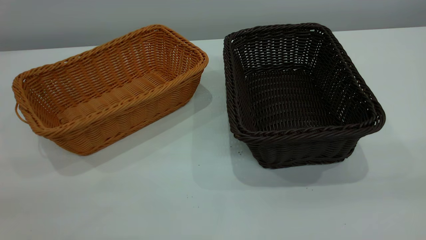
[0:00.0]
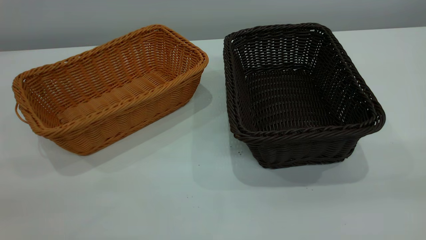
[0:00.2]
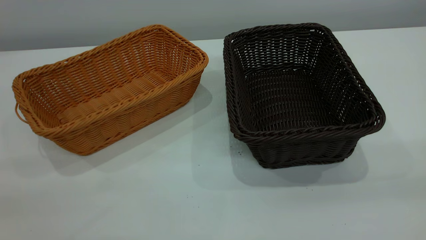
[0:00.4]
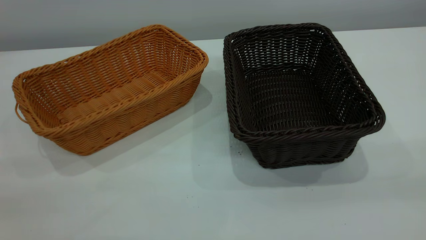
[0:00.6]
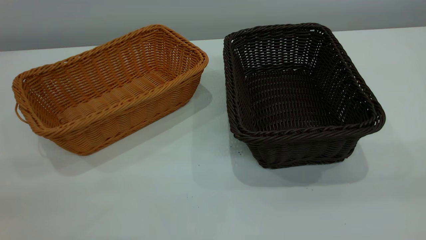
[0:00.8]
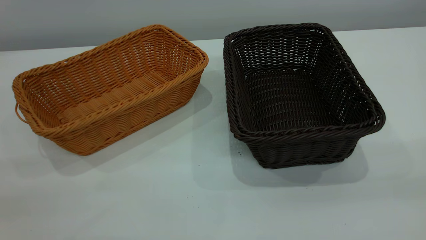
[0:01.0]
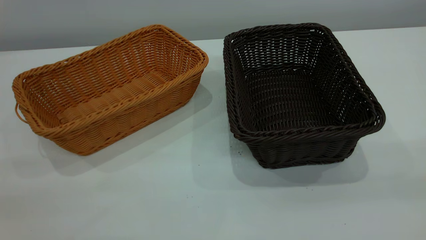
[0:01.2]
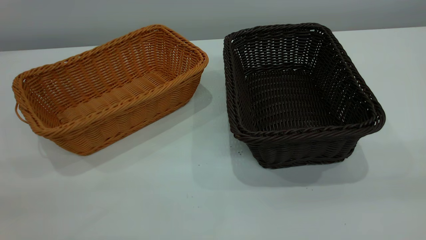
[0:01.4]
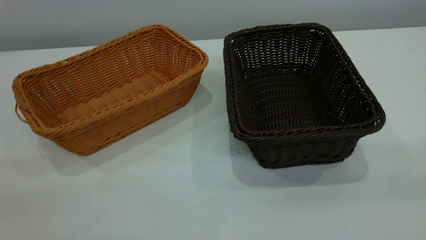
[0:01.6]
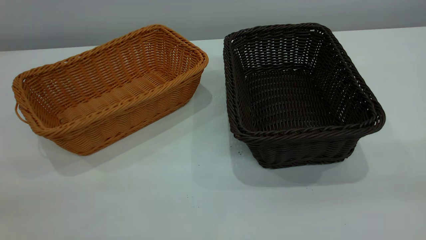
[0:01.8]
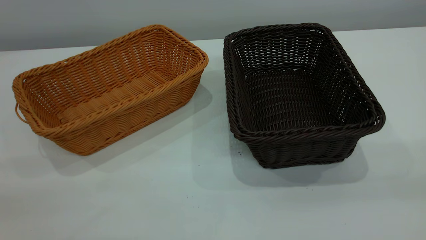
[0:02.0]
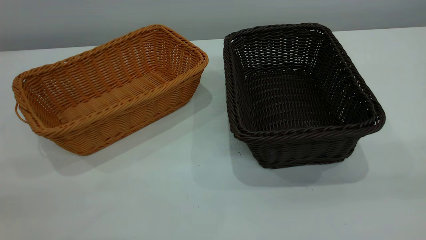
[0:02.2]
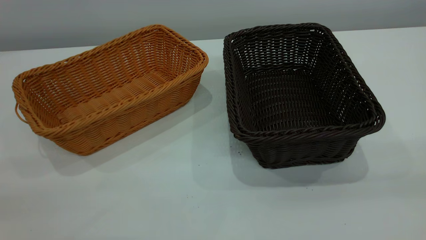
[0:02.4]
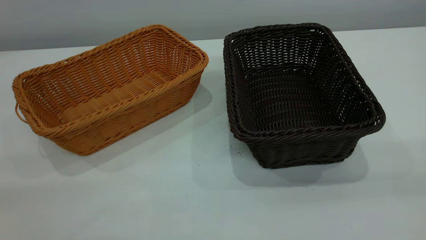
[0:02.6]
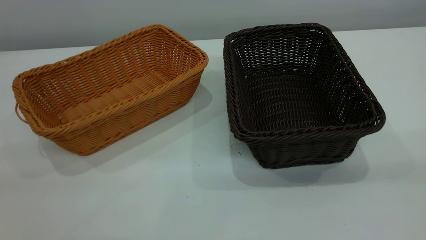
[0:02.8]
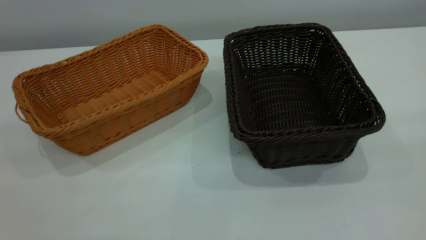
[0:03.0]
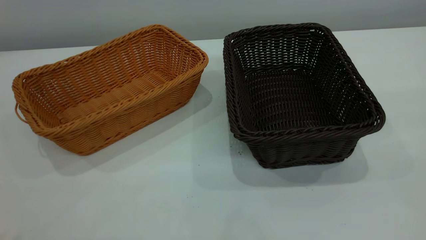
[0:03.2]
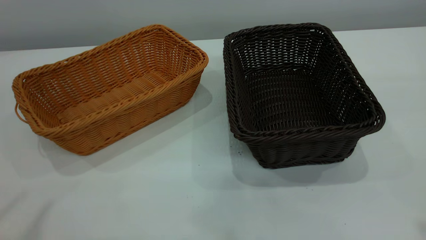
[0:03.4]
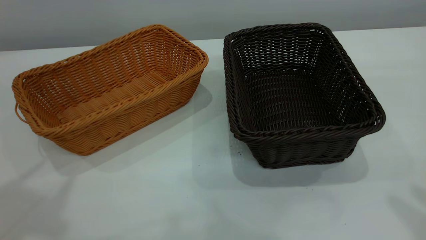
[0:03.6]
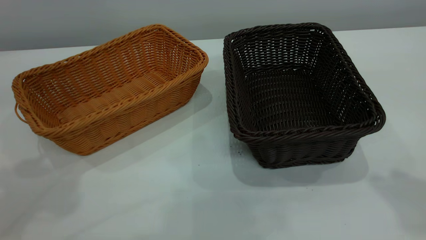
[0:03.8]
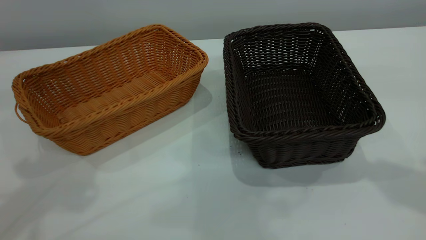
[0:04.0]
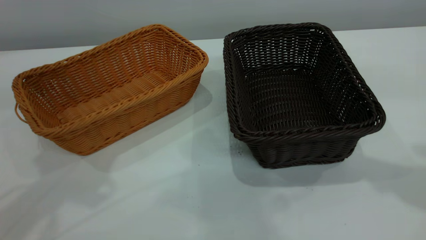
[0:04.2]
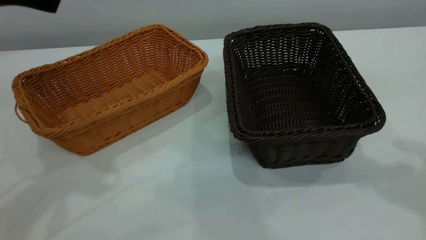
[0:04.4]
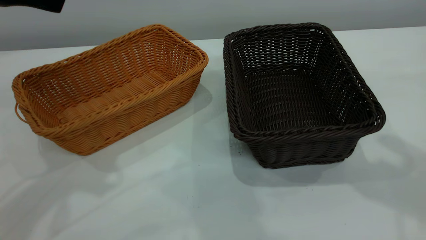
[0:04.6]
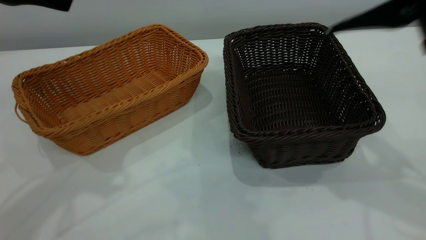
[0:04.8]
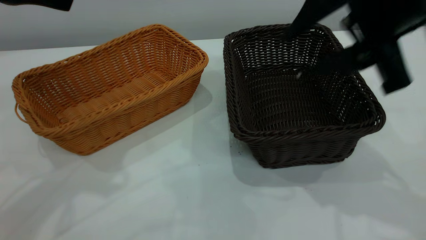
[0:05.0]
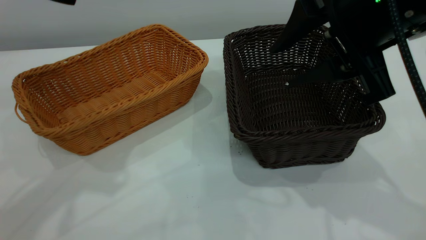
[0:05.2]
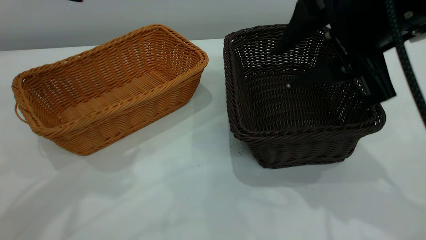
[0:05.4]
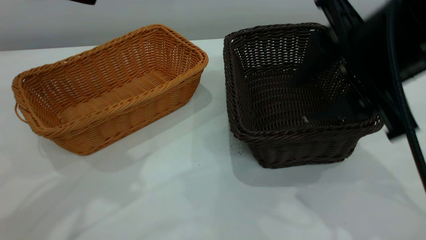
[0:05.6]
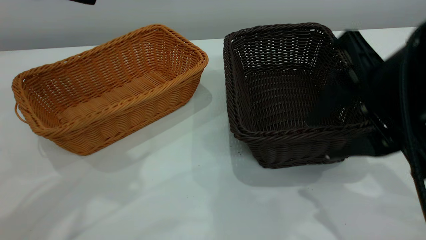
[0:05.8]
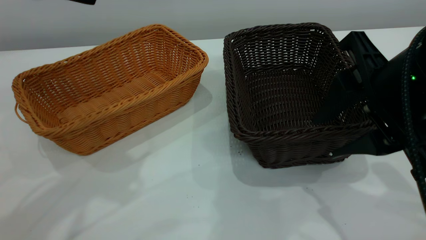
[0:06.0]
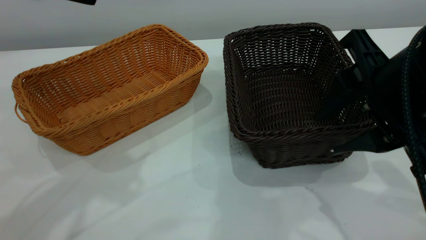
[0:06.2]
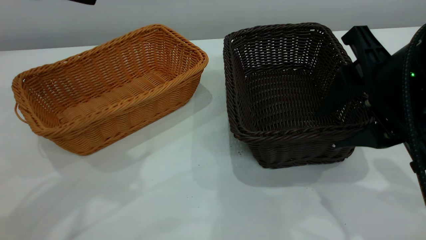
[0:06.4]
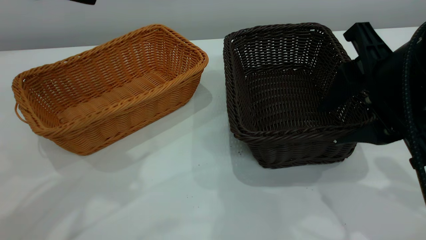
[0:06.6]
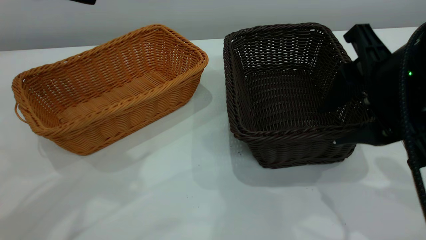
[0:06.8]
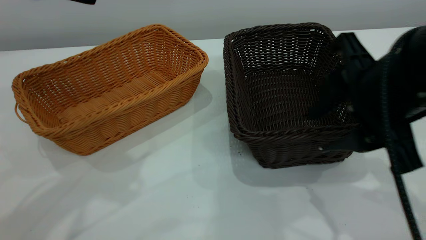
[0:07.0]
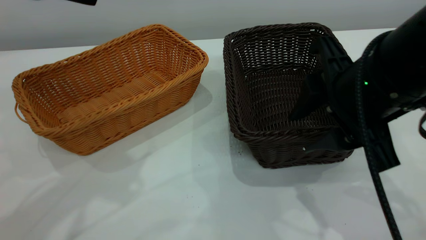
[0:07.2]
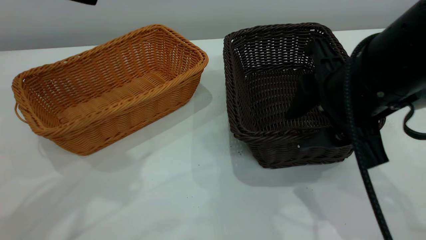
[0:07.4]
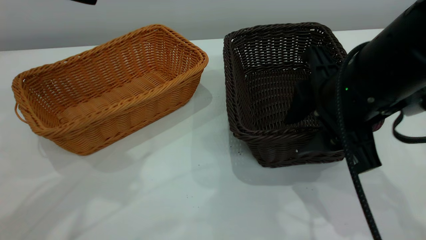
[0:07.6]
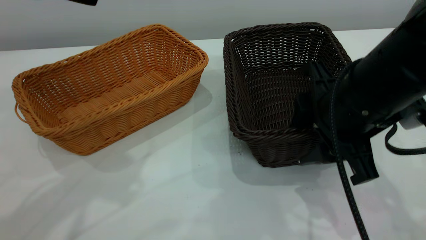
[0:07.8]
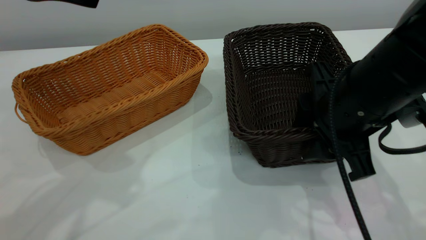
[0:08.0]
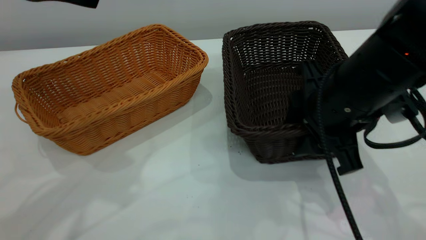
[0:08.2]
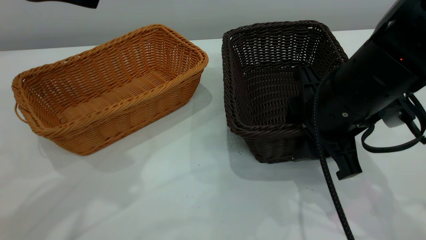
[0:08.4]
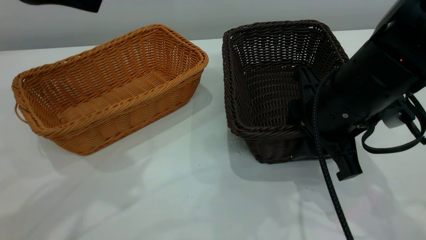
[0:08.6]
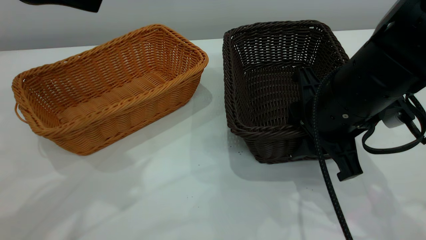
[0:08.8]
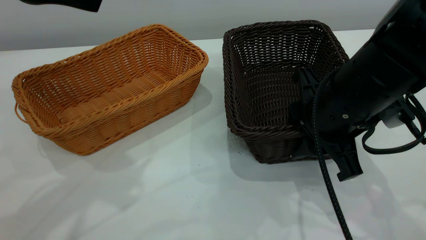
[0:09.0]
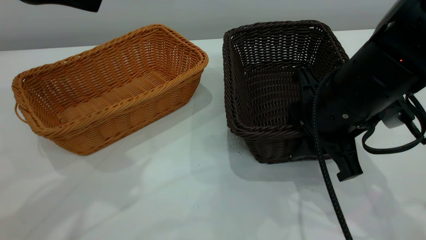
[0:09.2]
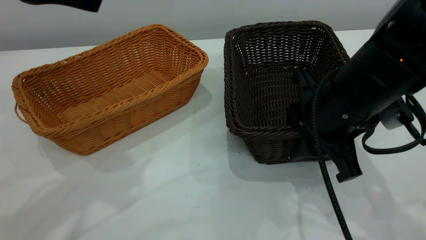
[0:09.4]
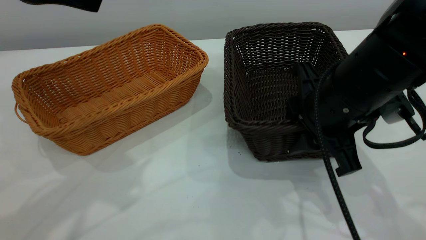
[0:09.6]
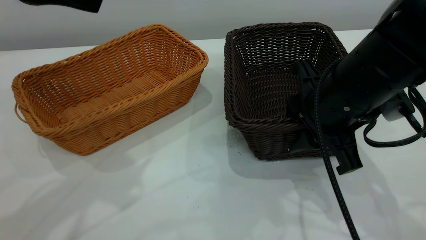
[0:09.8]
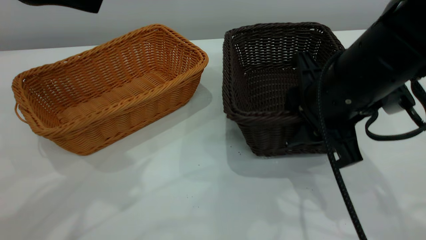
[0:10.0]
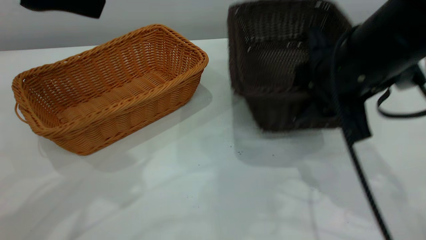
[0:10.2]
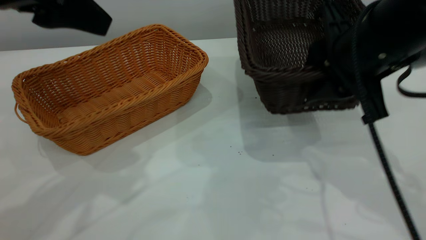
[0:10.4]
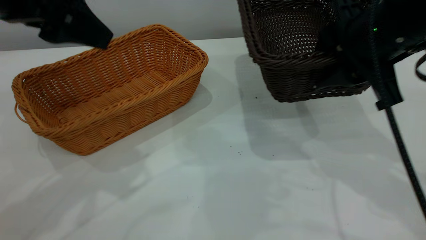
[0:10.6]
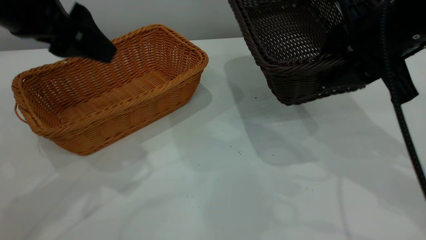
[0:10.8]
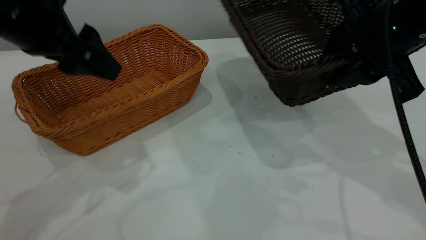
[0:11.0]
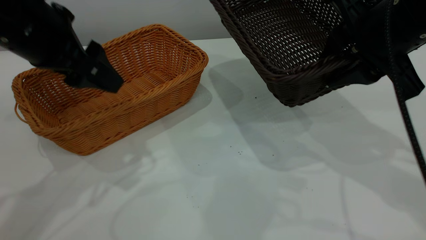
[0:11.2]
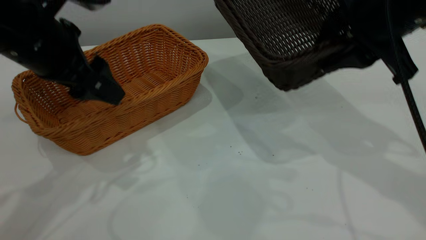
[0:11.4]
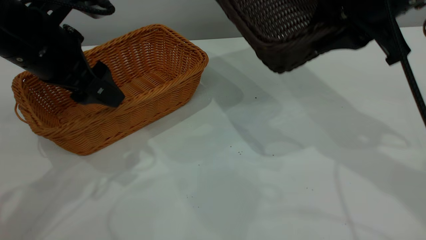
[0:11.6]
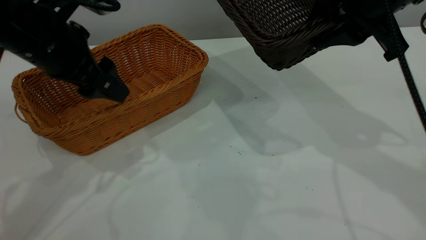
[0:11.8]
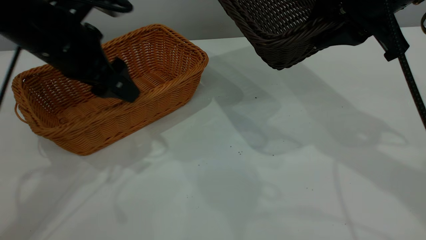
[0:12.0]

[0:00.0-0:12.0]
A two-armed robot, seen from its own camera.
Task of the whole recording: the left gripper grasp the brown basket and place it in the center of the table, the right gripper grasp the black basket and place it inside the brown one.
Step, 0:00.0 to 0:10.2: Pick up the light basket with the right gripper.
0:00.0 to 0:01.6: Neither gripper changes place.
0:04.4 to 0:06.0: The right gripper is displaced downward and to the left by roughly 15 cm.
0:06.0 to 0:07.6: The right gripper moves approximately 5 cm.
0:07.6 to 0:09.0: The grippers move only a little.
0:09.0 to 0:10.4: The right gripper shifts about 5 cm upward.
0:10.4 to 0:12.0: The left gripper shifts roughly 10 cm downward and forward. The right gripper moves about 5 cm.

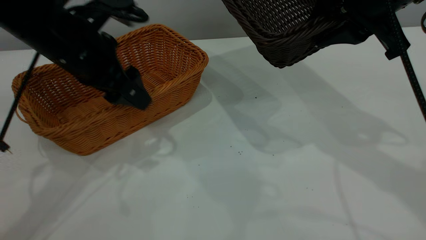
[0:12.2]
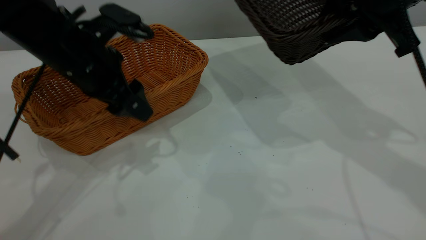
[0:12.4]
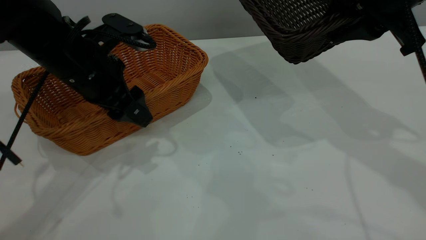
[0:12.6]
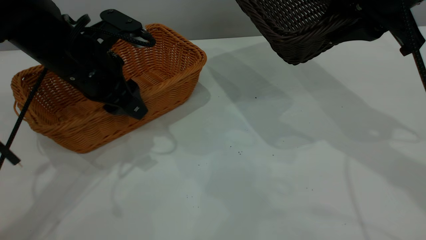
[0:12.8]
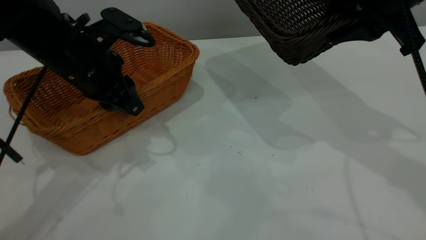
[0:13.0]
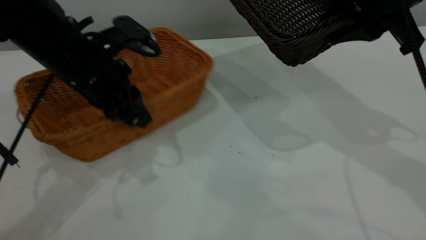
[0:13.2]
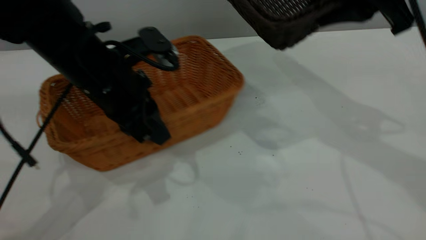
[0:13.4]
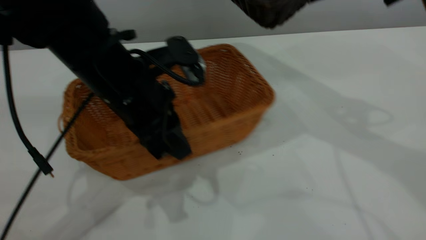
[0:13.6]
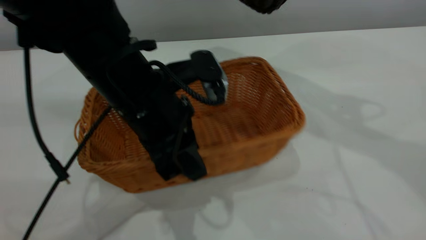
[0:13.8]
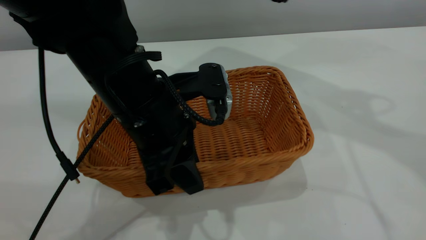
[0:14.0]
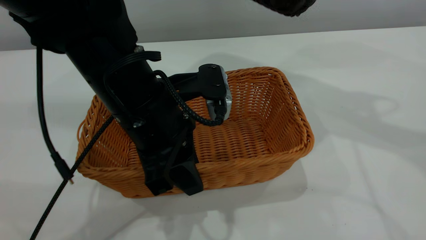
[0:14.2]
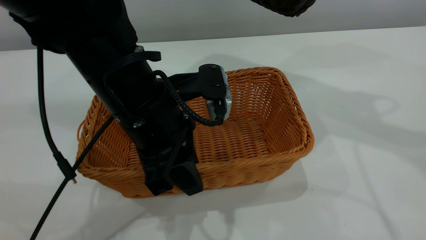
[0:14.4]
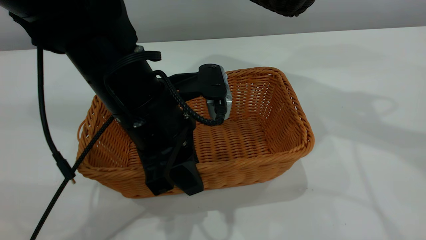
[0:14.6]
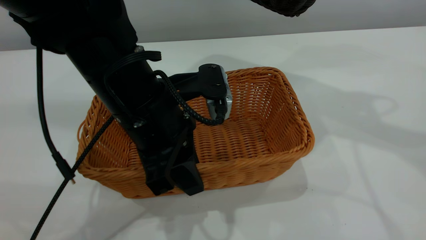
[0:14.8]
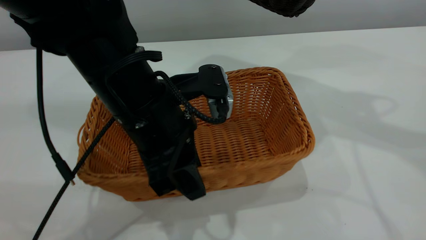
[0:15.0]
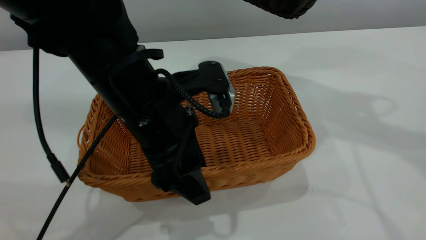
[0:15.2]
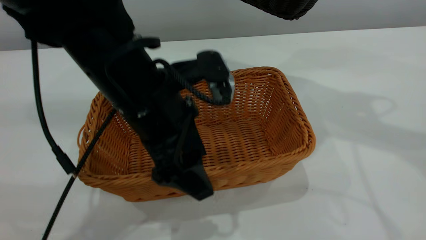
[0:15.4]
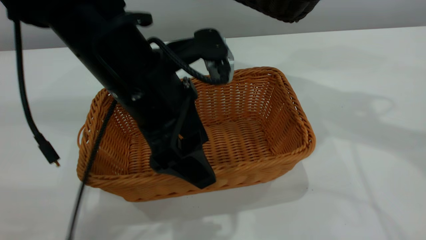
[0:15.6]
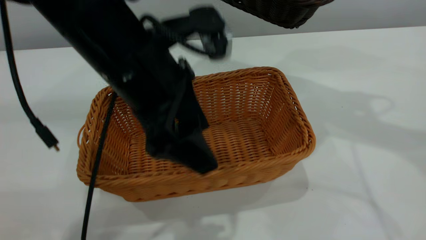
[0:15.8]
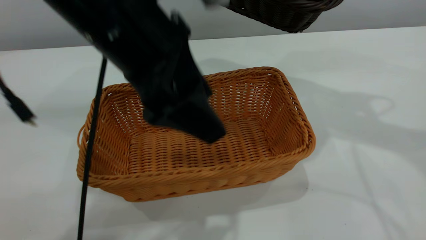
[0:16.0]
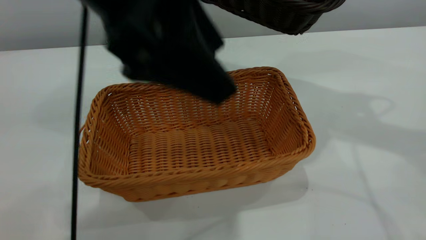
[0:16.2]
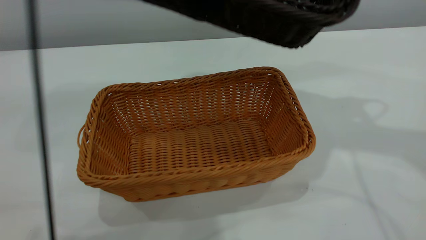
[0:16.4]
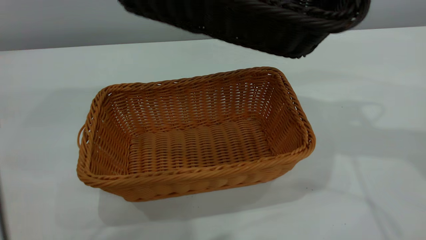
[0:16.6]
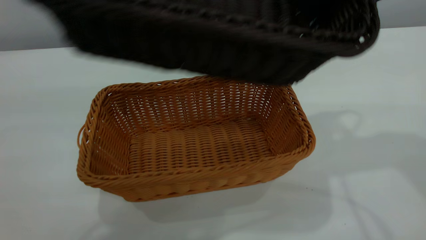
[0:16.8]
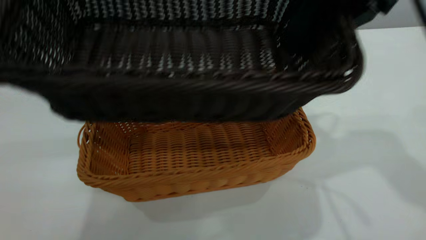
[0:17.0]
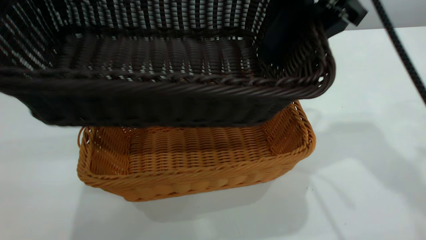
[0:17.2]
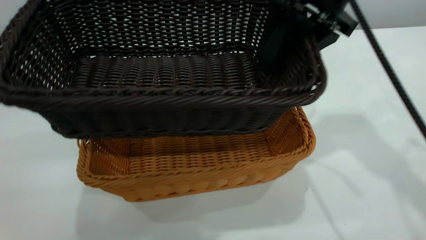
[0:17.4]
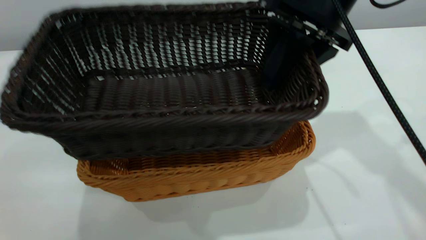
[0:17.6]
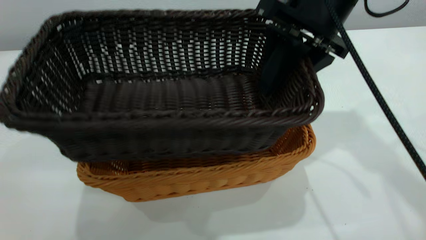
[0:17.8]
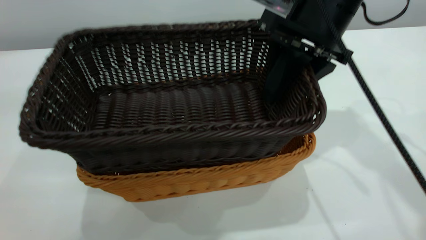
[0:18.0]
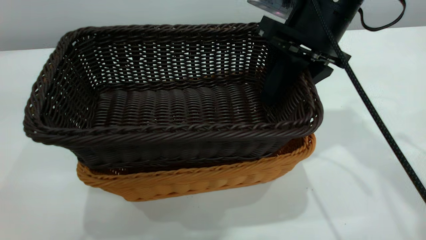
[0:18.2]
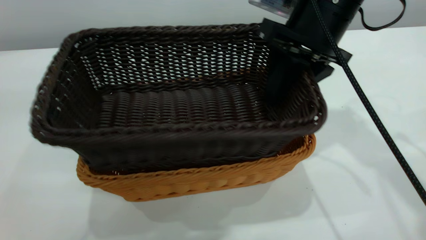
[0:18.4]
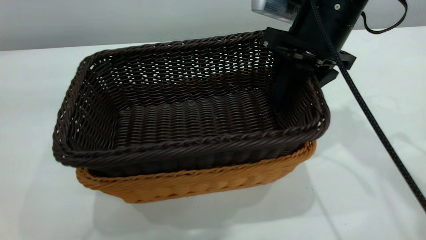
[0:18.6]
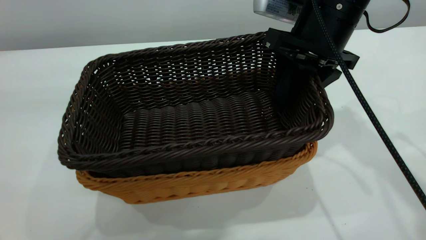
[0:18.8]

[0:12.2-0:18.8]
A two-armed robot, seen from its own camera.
Task of the whole recording: the left gripper grasp the brown basket and place it in the center of the table, the right gripper grasp the black basket and place it inside the brown one.
Step, 0:12.2 to 0:15.8: Place the light-colored basket in the center.
0:12.2 to 0:13.8: The left gripper goes roughly 10 cm to the right and backward, and closes its fingers. The right gripper moves upward, roughly 10 cm.
0:13.8 to 0:15.4: The left gripper opens its fingers.
0:15.4 to 0:17.2: The right gripper is displaced to the left and downward by roughly 10 cm, while the left gripper moves upward, approximately 25 cm.
0:17.2 to 0:18.8: The right gripper travels downward by approximately 5 cm.
